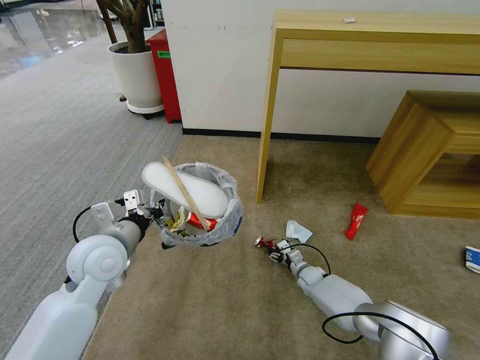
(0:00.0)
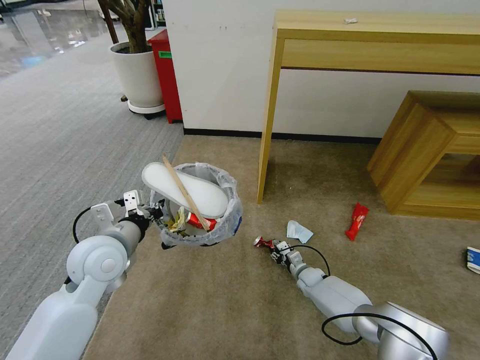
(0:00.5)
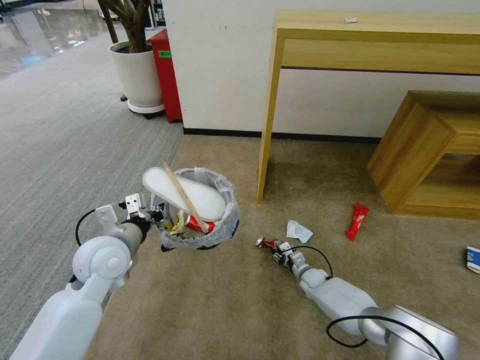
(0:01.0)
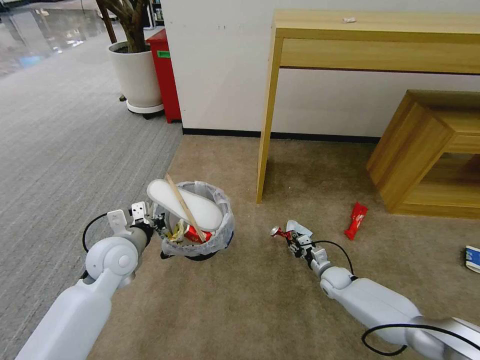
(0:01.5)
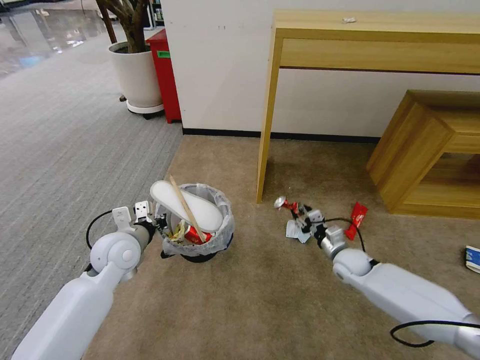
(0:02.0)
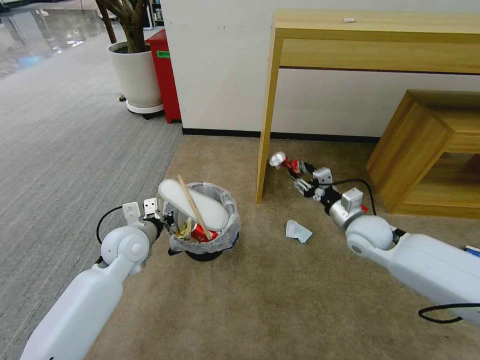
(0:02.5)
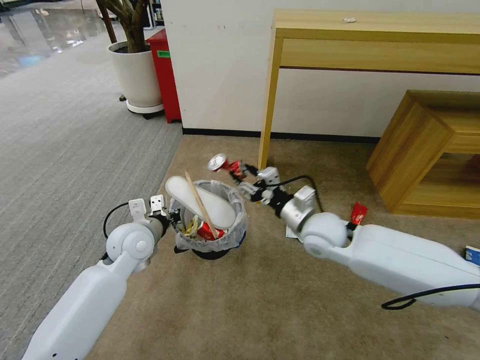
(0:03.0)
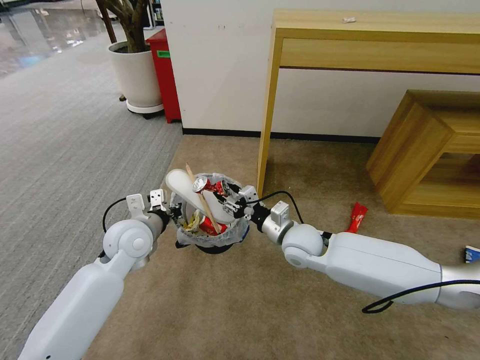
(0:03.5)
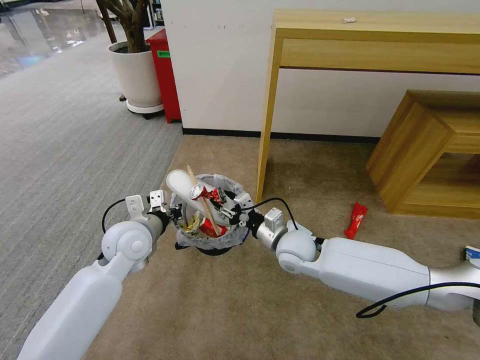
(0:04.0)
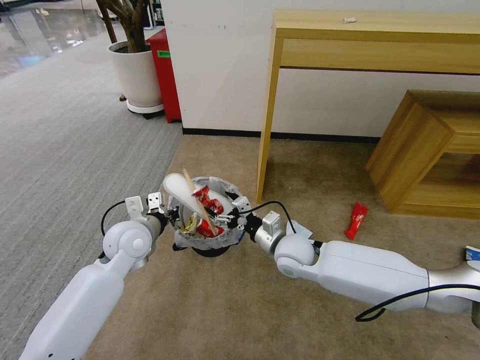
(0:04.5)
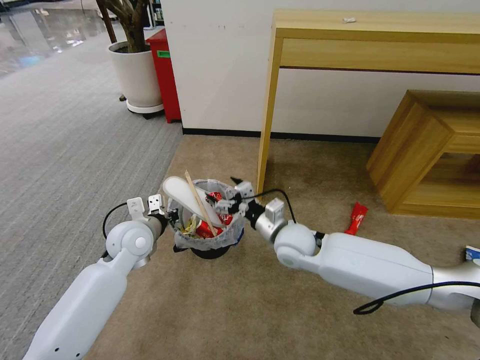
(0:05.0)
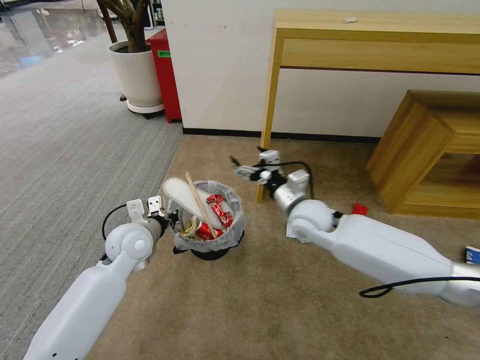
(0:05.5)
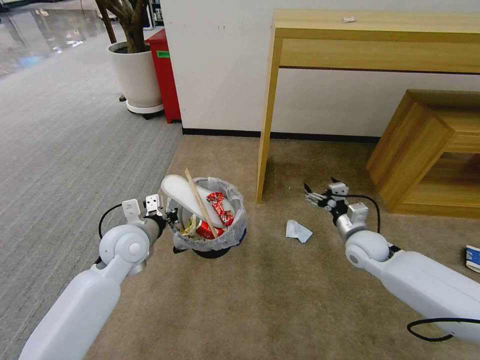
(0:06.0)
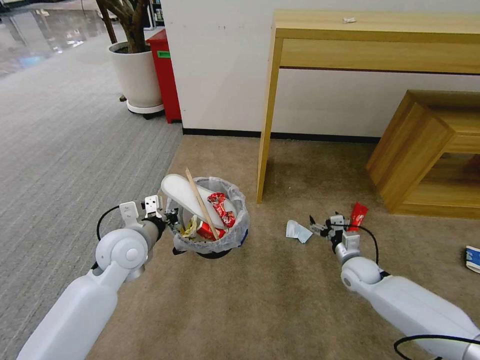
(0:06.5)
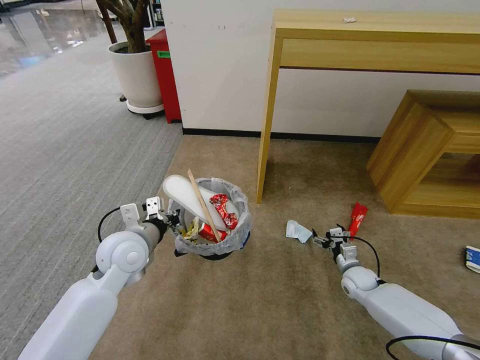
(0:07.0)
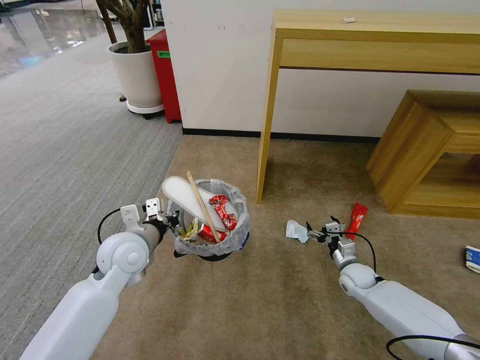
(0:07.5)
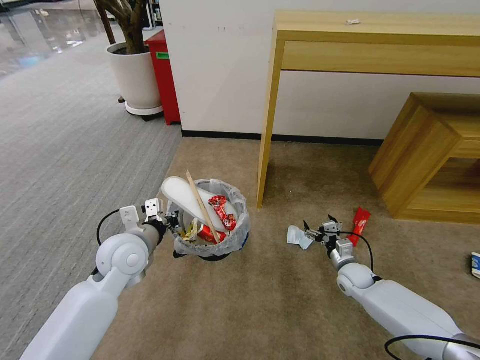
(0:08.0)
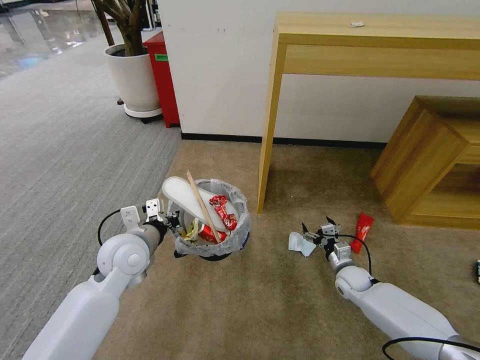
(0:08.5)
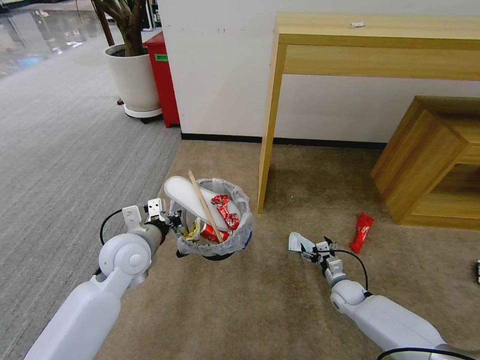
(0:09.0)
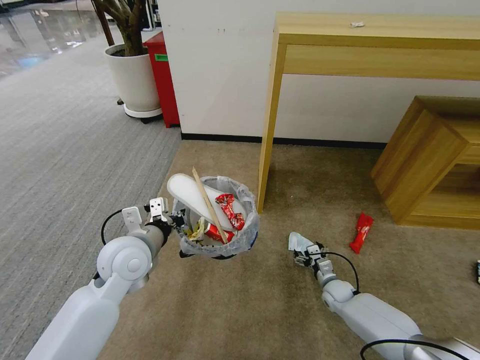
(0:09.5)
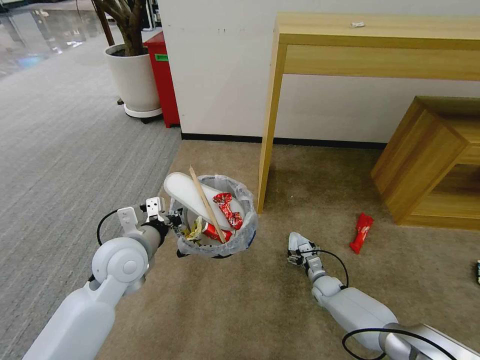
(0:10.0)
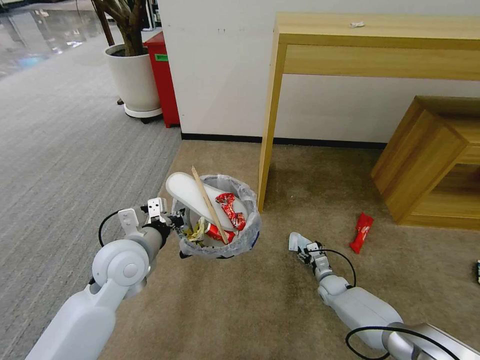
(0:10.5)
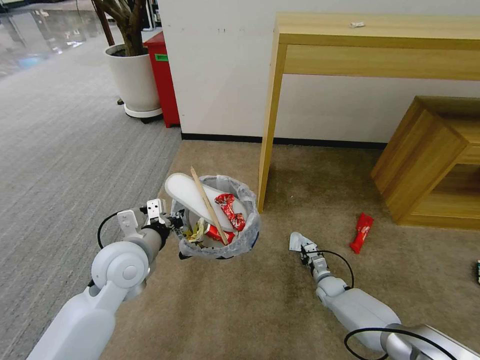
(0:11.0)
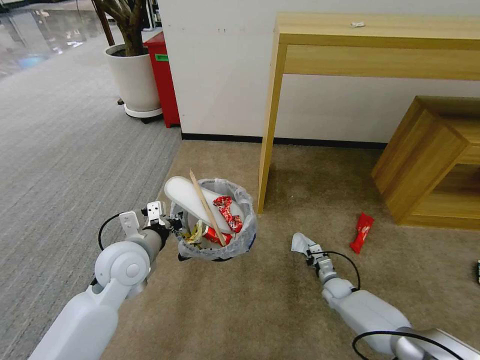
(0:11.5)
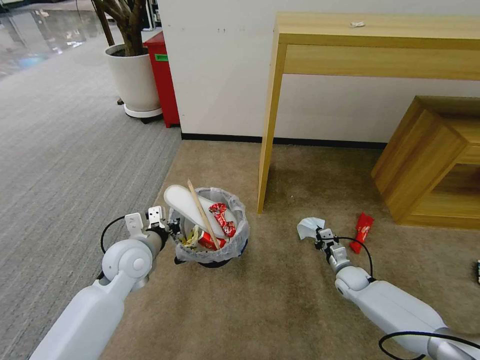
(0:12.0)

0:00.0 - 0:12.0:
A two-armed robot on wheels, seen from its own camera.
Task of the whole recording: Pick up the trash bin and place the garbage on the floor into it.
0:00.0 - 0:02.0: The right gripper shifts some 15 cm upward and to the right. The left gripper goes roughly 5 cm downward.
0:02.0 - 0:04.0: The right gripper travels to the left and upward by roughly 20 cm.
0:04.0 - 0:06.0: The right gripper travels to the right by approximately 15 cm, and opens its fingers.
0:06.0 - 0:08.0: The right gripper travels downward by roughly 15 cm.
0:08.0 - 0:10.0: The right gripper is displaced downward by some 10 cm.
0:10.0 - 0:12.0: The right gripper travels upward and to the right by roughly 10 cm, and closes its fingers. Meanwhile the left gripper shifts by about 5 cm.

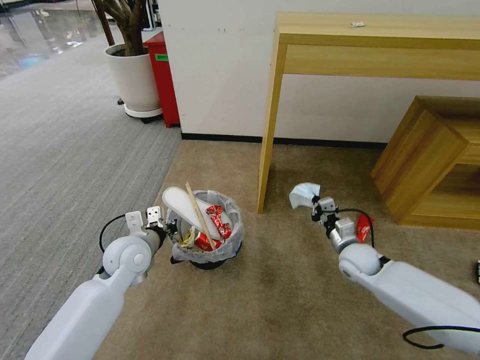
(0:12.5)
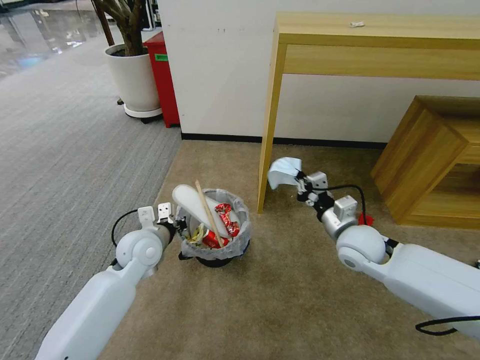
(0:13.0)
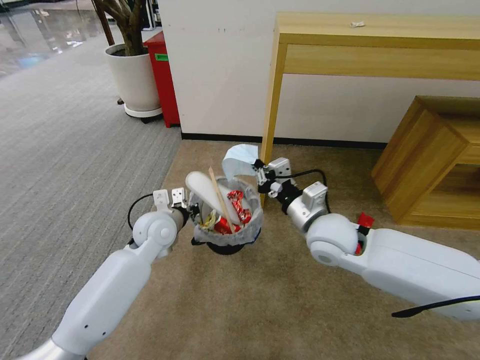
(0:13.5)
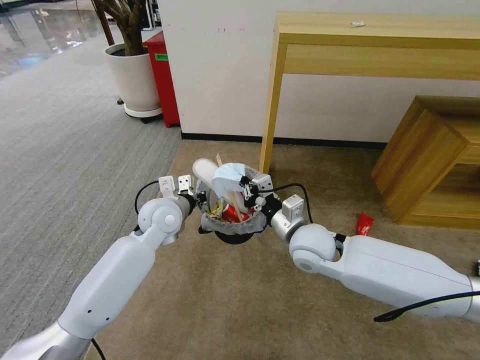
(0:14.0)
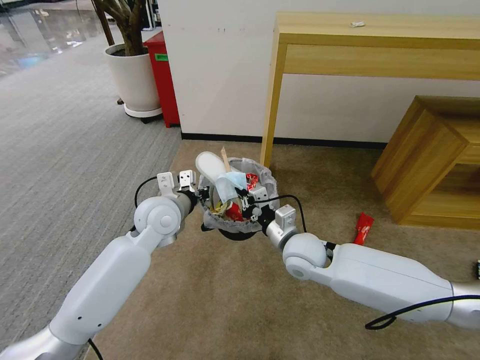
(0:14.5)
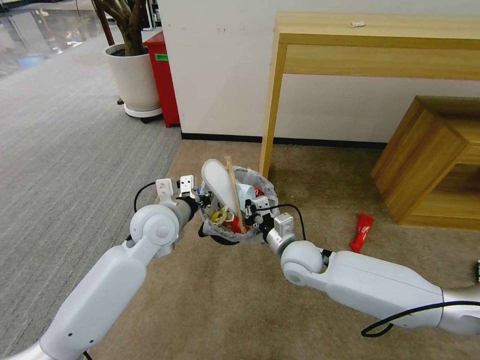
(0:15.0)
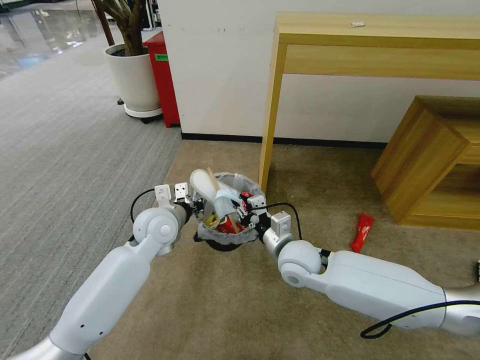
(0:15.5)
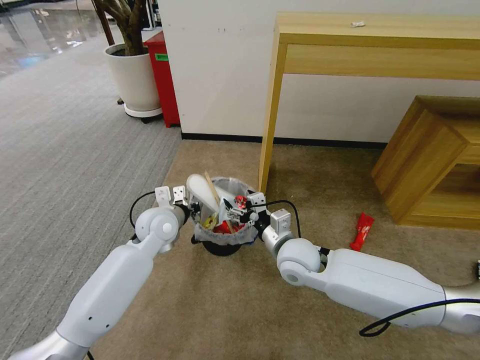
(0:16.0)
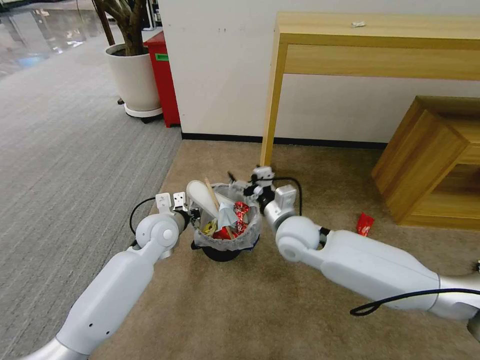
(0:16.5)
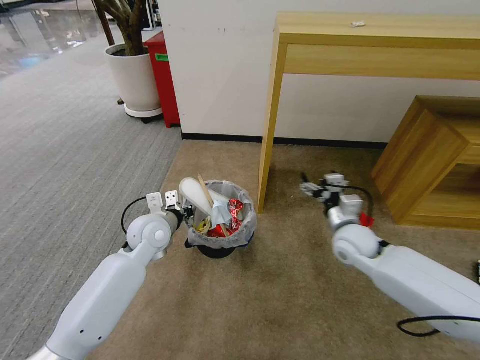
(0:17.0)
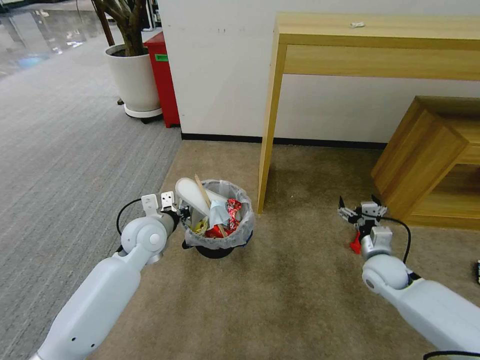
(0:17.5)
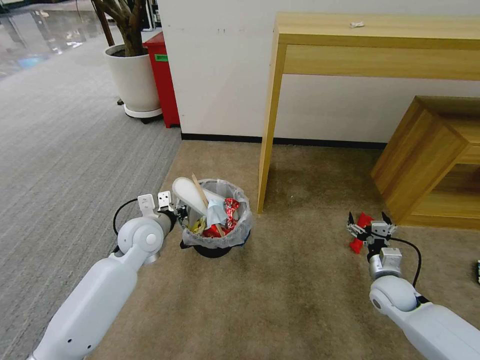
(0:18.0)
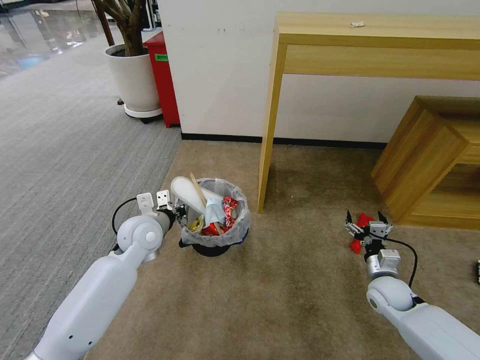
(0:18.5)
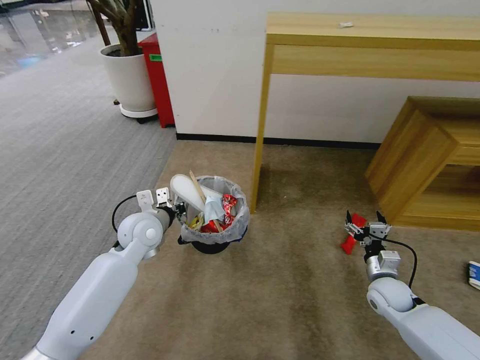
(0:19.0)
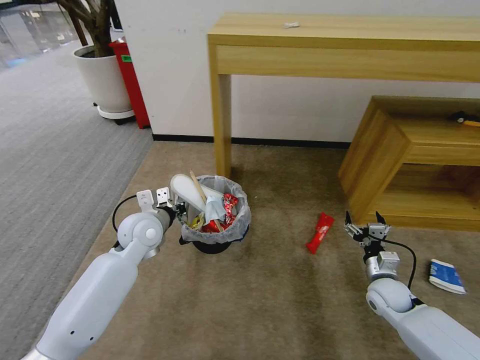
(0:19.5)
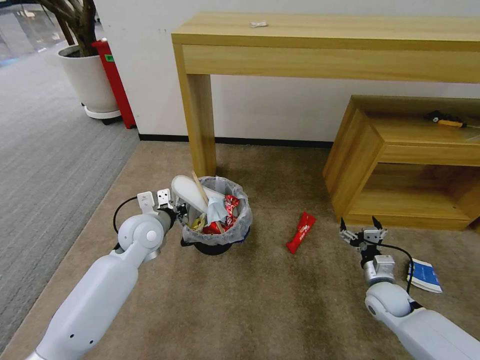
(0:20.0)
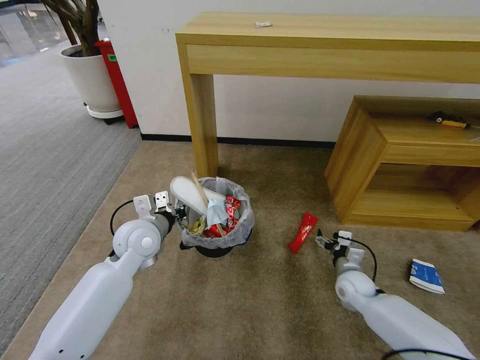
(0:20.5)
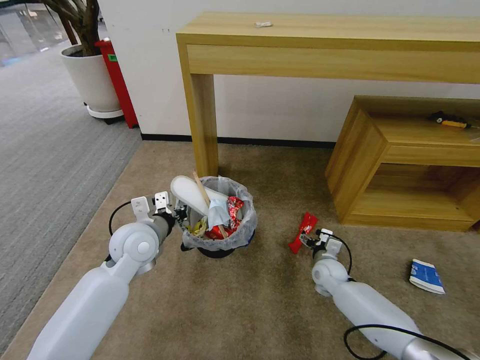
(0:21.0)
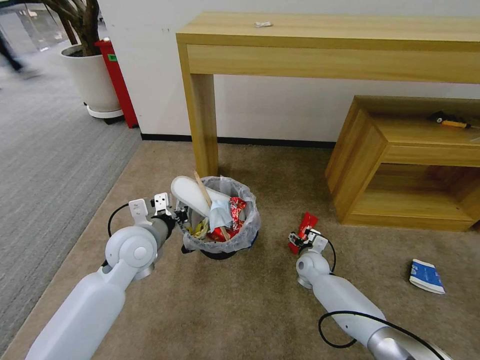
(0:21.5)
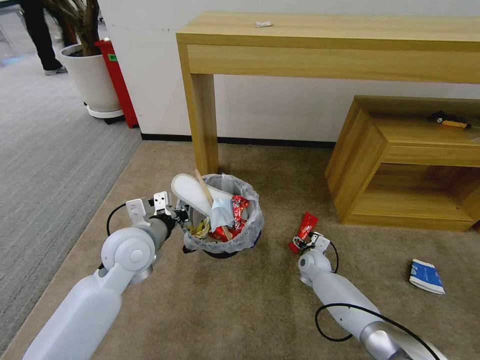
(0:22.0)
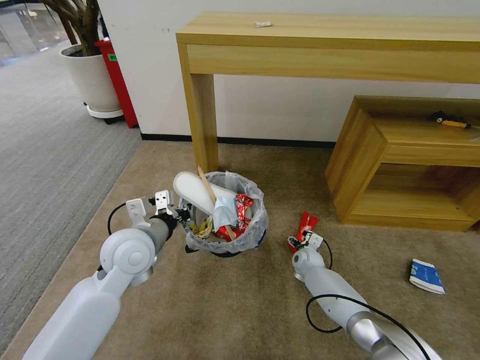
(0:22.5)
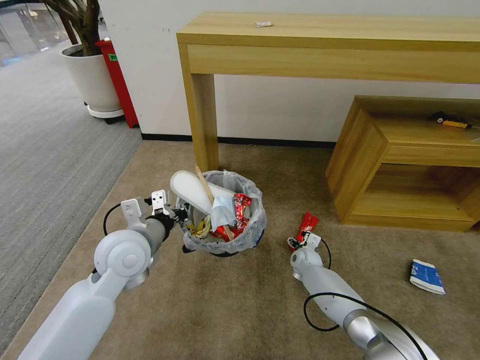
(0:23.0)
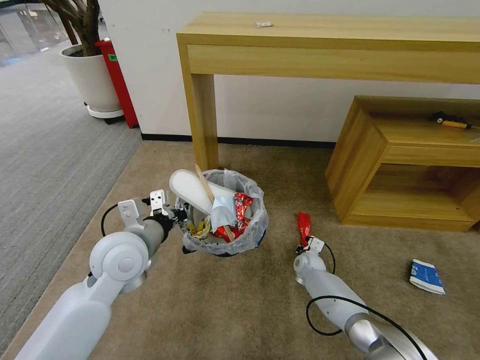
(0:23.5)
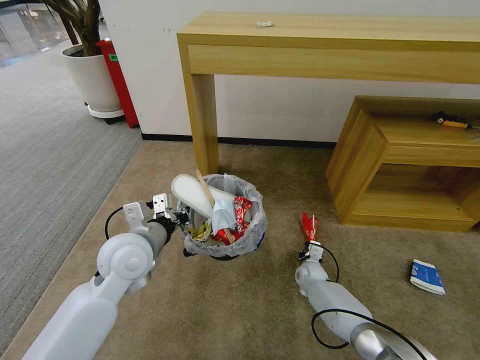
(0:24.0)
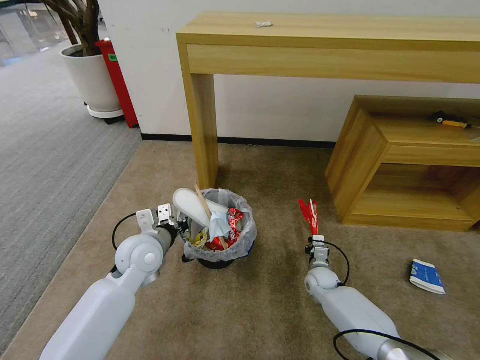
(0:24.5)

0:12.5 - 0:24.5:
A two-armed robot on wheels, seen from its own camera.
Task of the whole recording: Pick up the trash bin and place the garbage on the floor into it.
0:12.5 - 0:14.5: The left gripper moves upward and to the right, roughly 10 cm. Meanwhile the right gripper moves to the left and upward, roughly 20 cm.
0:14.5 - 0:16.5: The left gripper moves downward, approximately 5 cm, while the right gripper opens.
0:16.5 - 0:18.5: The right gripper moves to the right and downward, roughly 30 cm.
0:18.5 - 0:20.5: The right gripper moves to the left, roughly 5 cm.
0:20.5 - 0:22.5: The left gripper heads backward, covering roughly 5 cm. Meanwhile the right gripper moves forward, to the left and downward, about 15 cm.
0:22.5 - 0:24.5: The right gripper goes about 5 cm backward, and closes its fingers; the left gripper is displaced downward by about 5 cm.

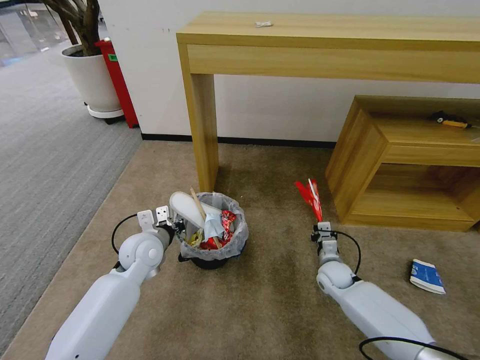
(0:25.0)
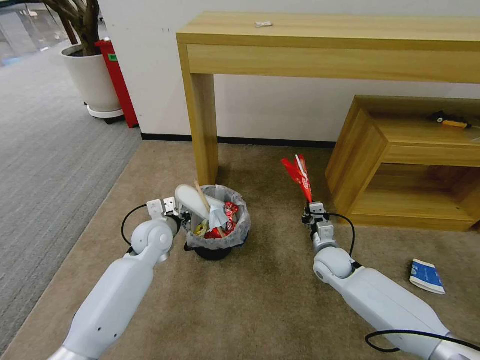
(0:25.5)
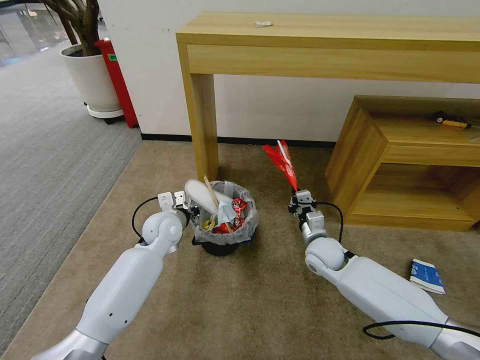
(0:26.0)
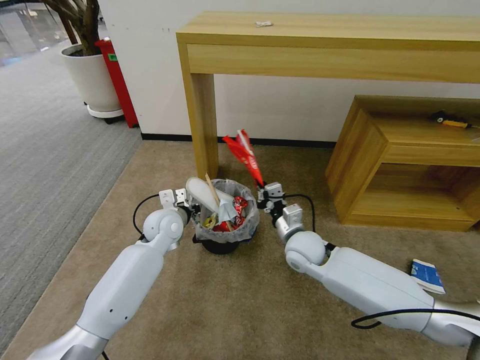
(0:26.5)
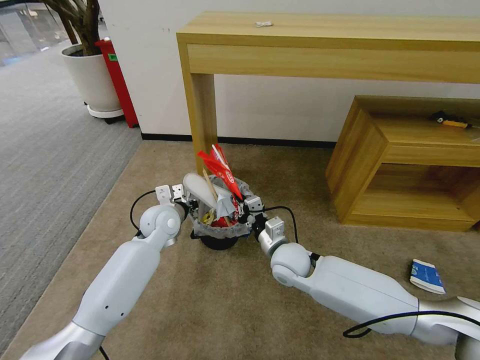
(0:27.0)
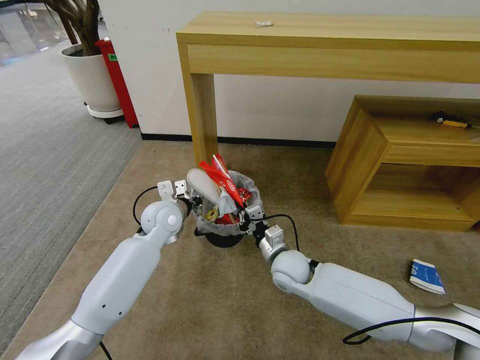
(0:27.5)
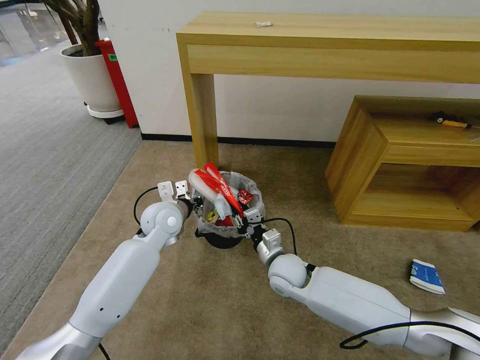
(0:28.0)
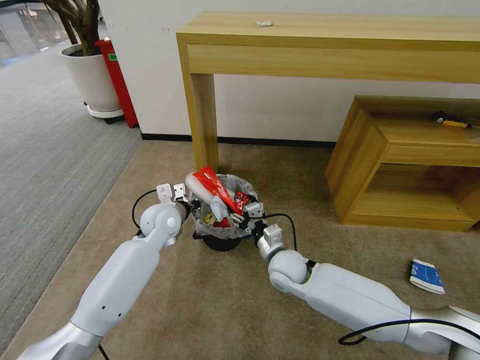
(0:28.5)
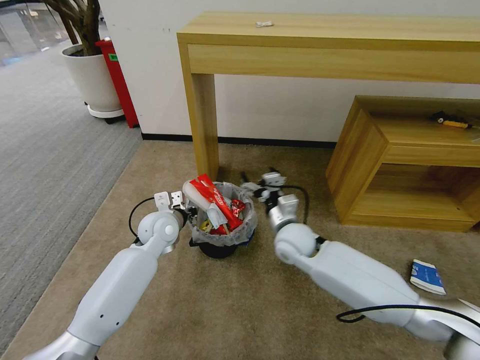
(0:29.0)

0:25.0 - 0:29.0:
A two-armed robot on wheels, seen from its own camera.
Task of the whole recording: Pick up the trash bin and place the garbage on the floor into it.
0:25.0 - 0:27.0: The right gripper moves to the left and upward, about 20 cm, while the left gripper moves forward, roughly 10 cm.
0:27.0 - 0:29.0: The right gripper opens up.
